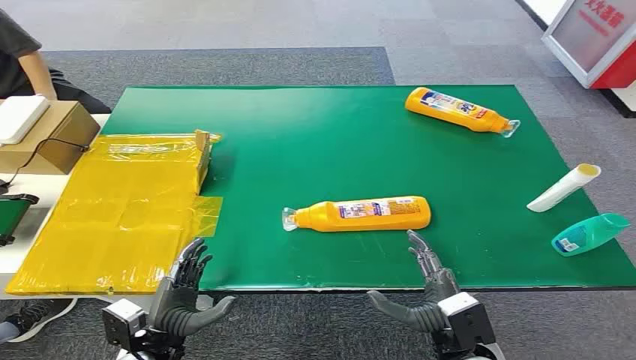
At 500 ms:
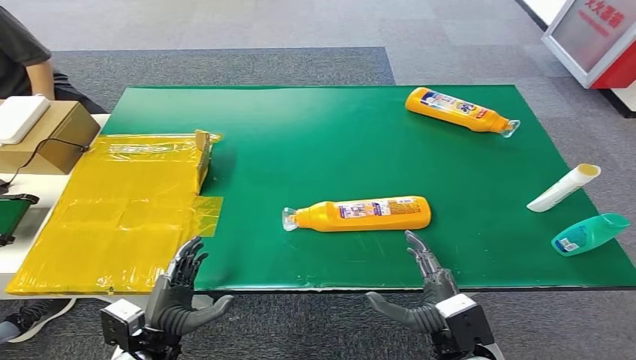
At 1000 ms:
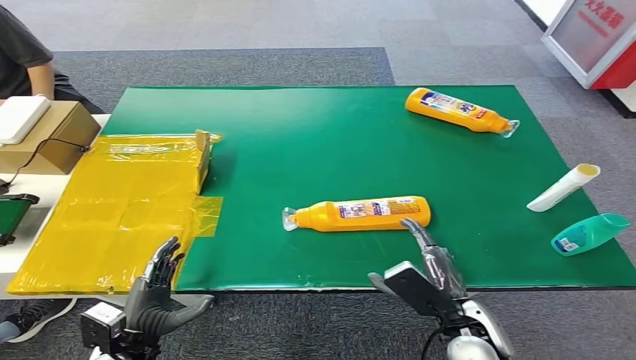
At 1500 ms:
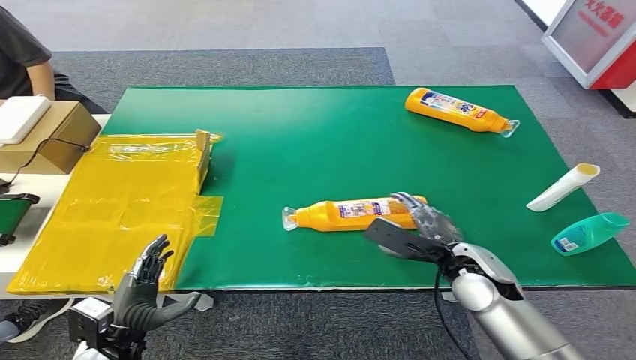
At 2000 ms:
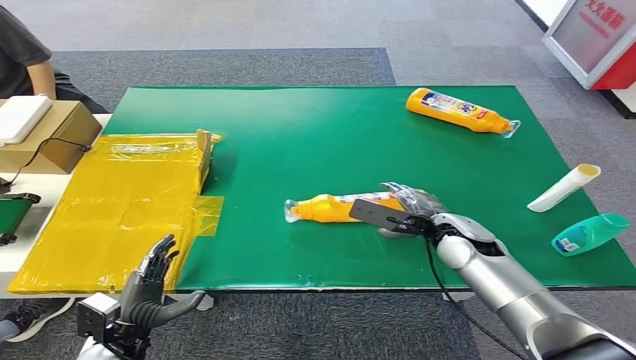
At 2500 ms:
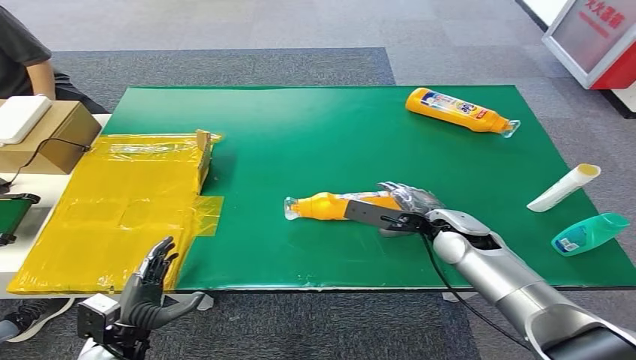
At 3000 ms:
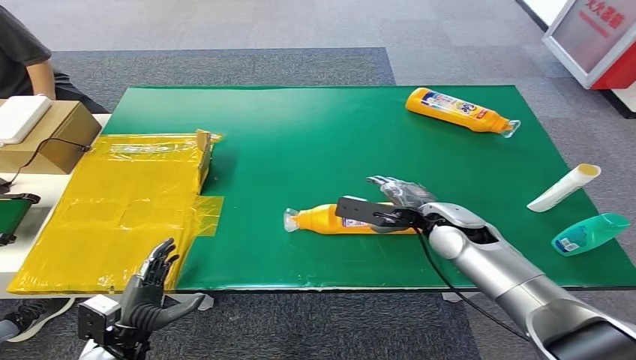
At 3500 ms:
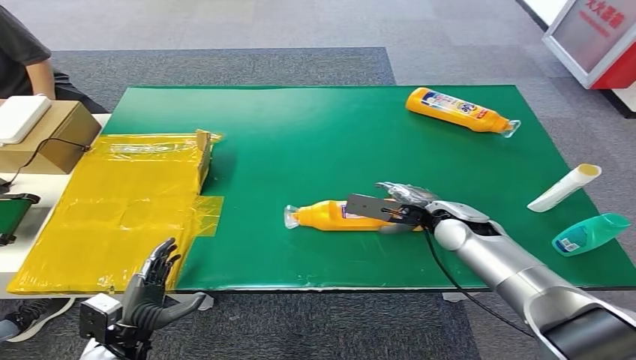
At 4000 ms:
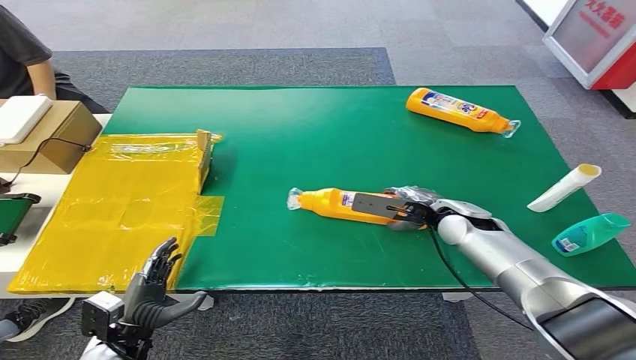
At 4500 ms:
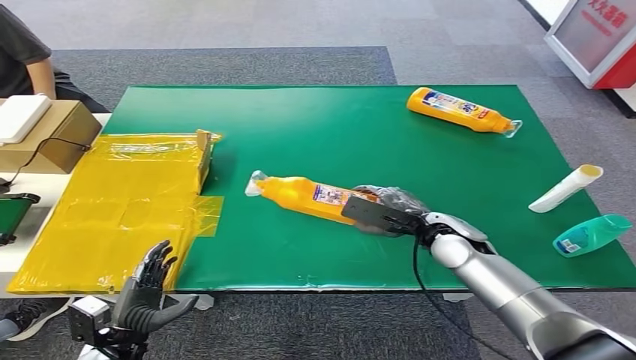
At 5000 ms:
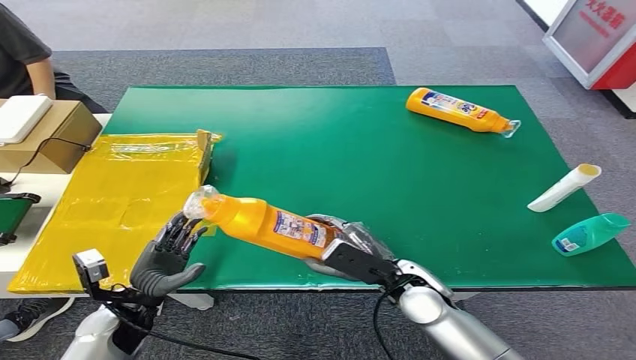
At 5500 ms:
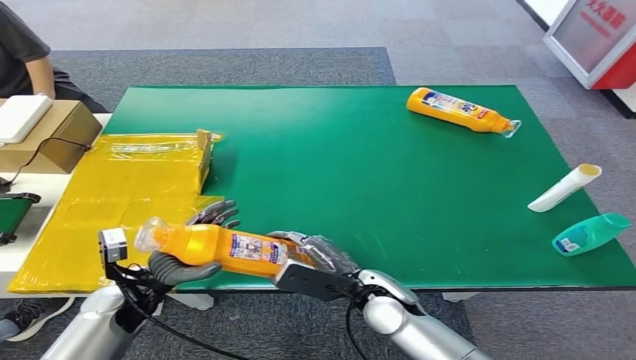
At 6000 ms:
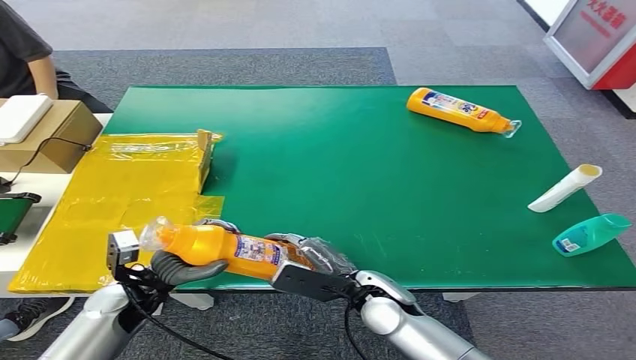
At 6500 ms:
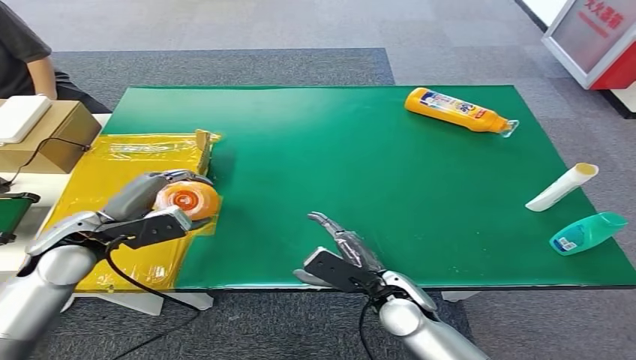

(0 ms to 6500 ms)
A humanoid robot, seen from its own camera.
Step, 0 ms - 4500 ms: Pick up the bottle from the table.
Step, 5000 ms - 6500 ms: Turn the bottle to the front side.
2000 ms - 4500 ms: The hands stay close to where they were, moving slightly.
